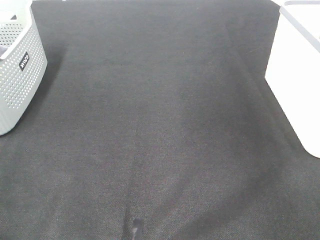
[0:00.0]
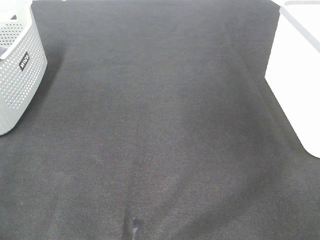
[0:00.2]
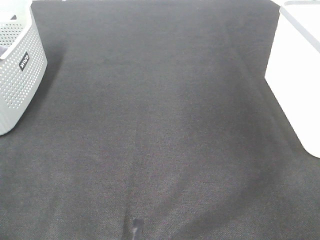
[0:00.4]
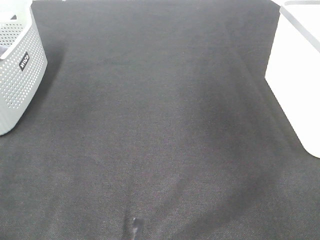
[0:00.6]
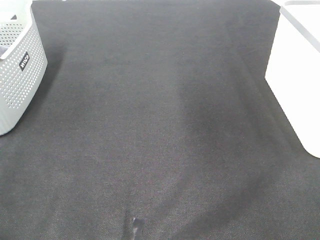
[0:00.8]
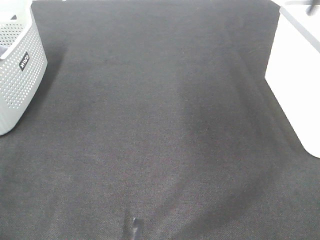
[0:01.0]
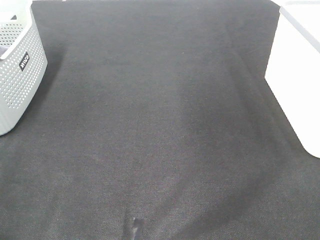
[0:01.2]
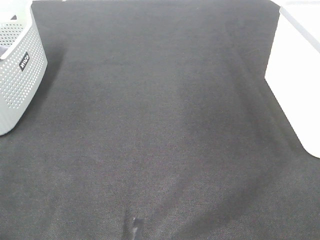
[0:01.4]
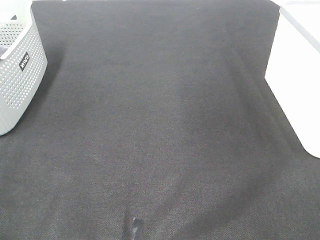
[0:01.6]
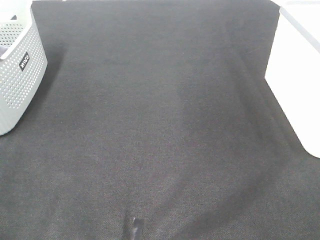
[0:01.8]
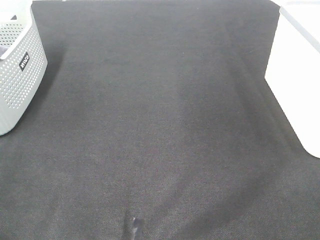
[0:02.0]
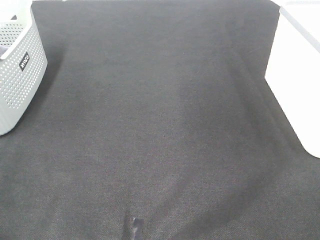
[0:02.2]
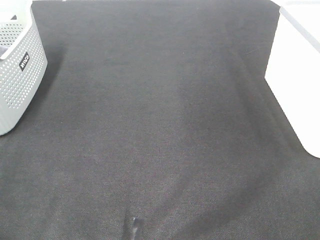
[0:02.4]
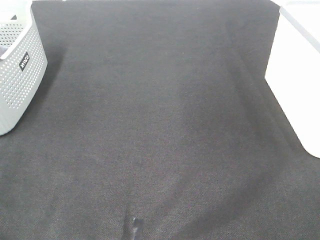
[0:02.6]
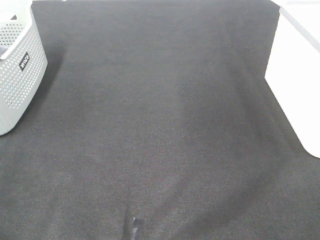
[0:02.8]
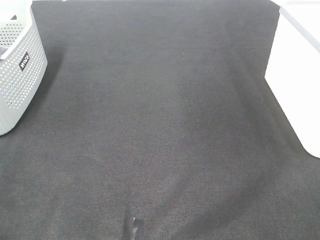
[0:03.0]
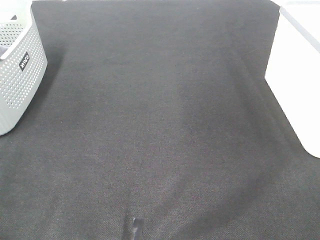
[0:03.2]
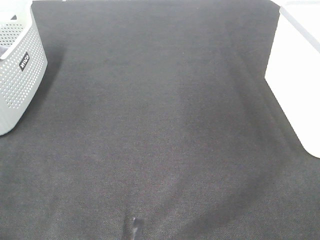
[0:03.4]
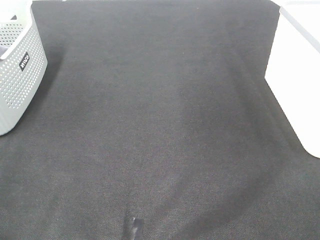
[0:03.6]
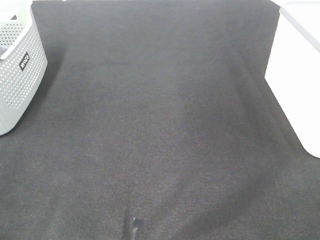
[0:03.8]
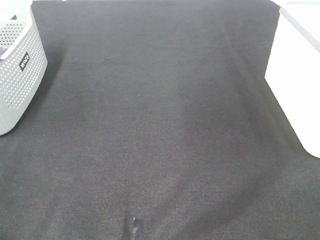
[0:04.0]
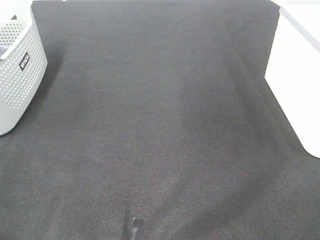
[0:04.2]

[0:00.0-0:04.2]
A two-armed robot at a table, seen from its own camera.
0:02.8 to 0:04.2: The two grippers keep their place.

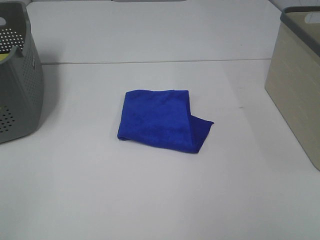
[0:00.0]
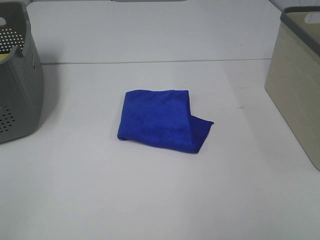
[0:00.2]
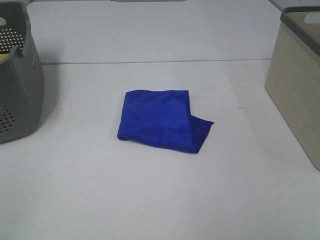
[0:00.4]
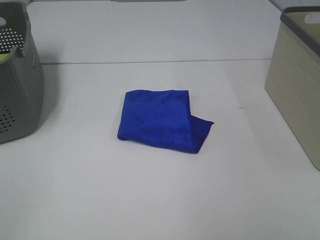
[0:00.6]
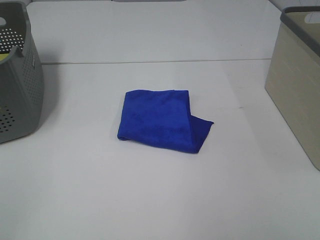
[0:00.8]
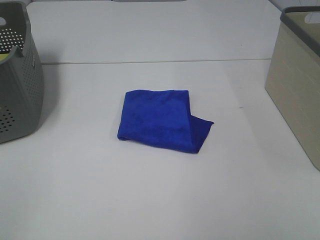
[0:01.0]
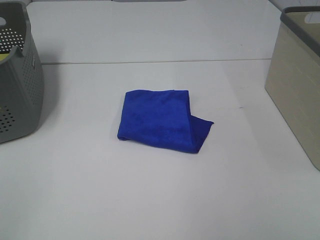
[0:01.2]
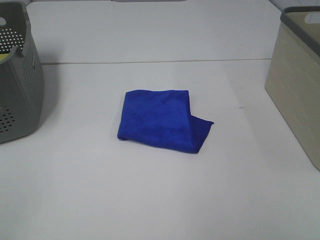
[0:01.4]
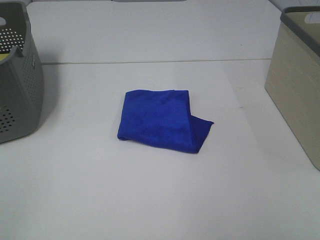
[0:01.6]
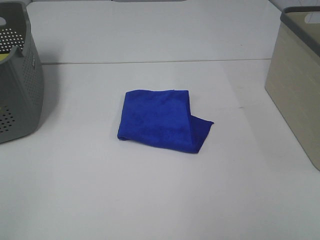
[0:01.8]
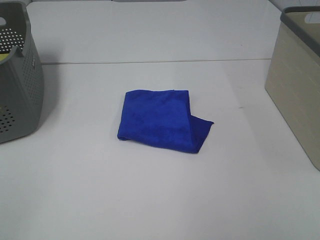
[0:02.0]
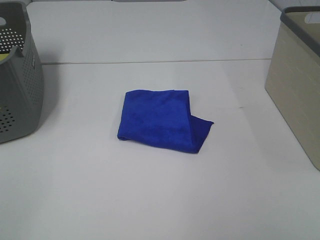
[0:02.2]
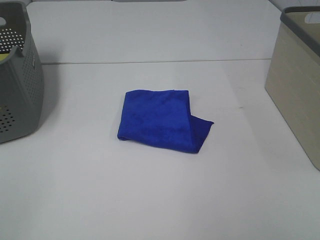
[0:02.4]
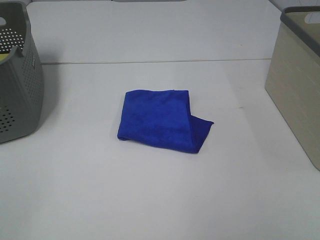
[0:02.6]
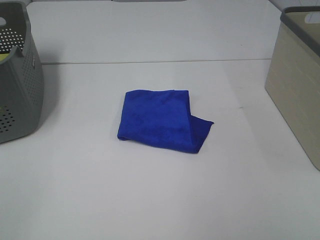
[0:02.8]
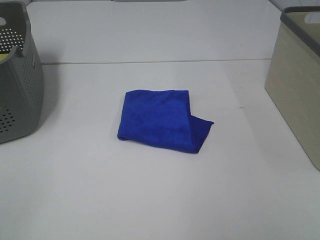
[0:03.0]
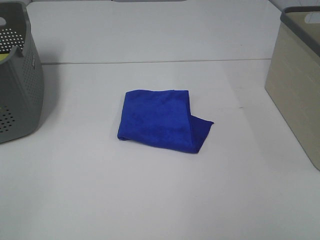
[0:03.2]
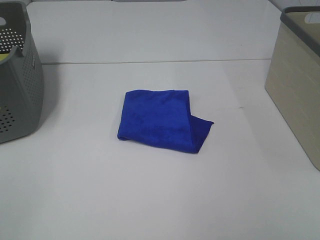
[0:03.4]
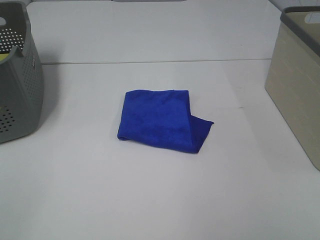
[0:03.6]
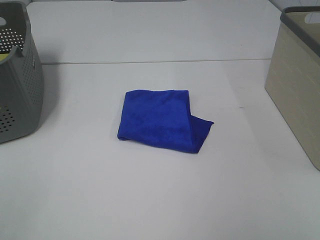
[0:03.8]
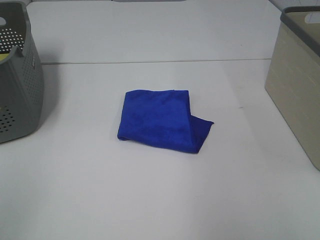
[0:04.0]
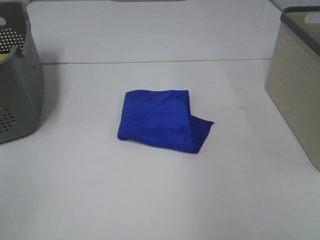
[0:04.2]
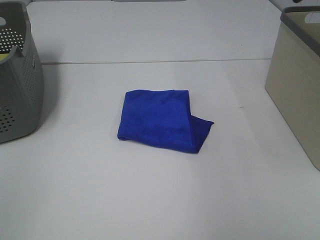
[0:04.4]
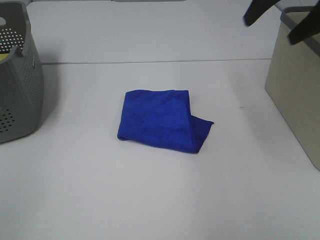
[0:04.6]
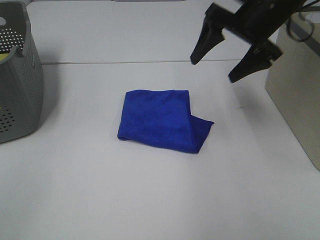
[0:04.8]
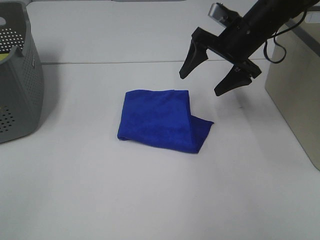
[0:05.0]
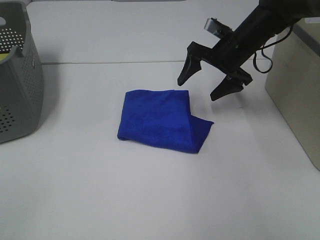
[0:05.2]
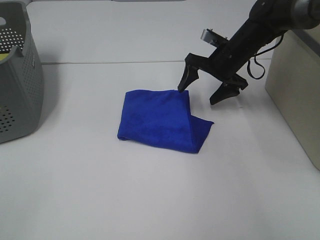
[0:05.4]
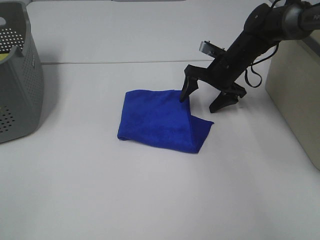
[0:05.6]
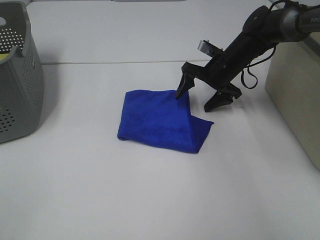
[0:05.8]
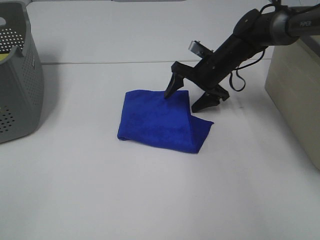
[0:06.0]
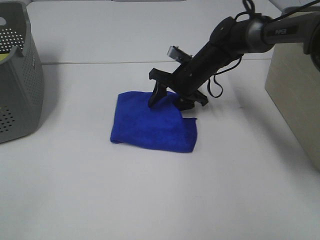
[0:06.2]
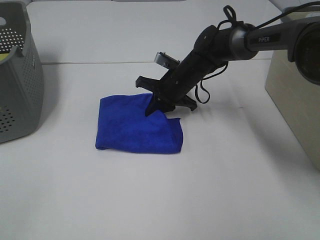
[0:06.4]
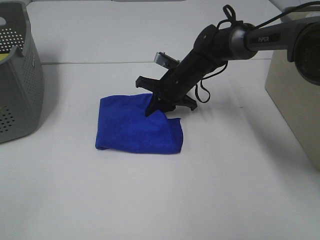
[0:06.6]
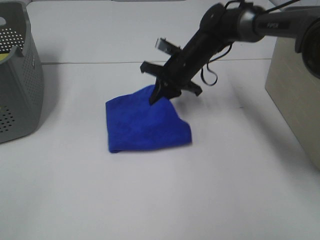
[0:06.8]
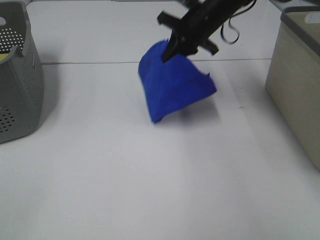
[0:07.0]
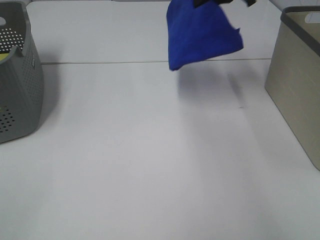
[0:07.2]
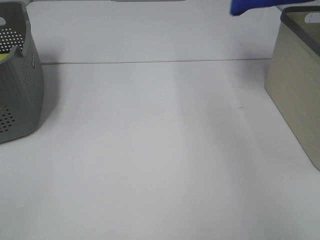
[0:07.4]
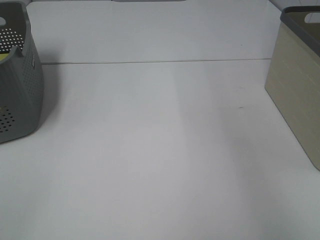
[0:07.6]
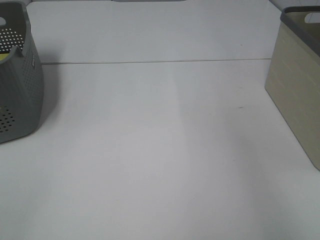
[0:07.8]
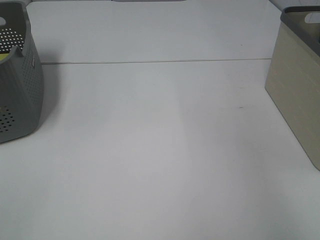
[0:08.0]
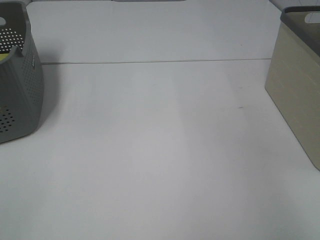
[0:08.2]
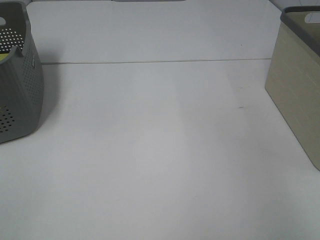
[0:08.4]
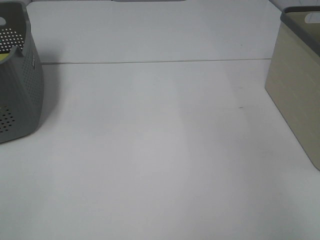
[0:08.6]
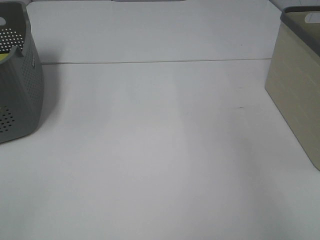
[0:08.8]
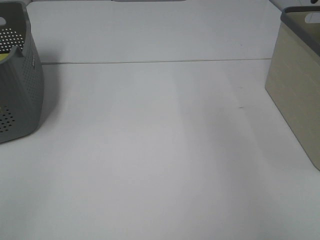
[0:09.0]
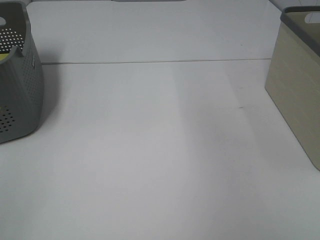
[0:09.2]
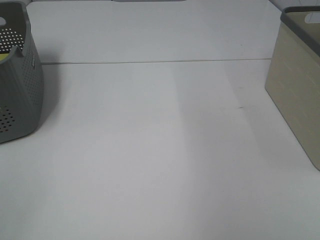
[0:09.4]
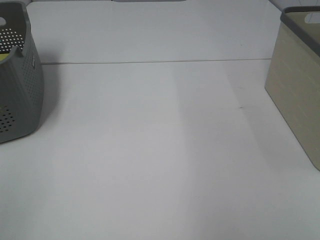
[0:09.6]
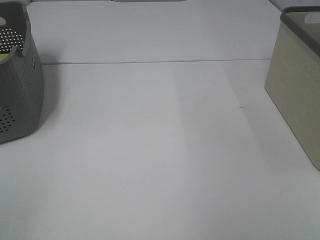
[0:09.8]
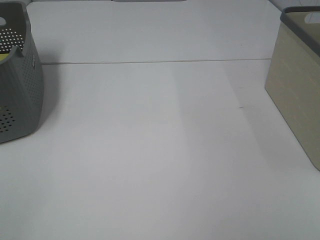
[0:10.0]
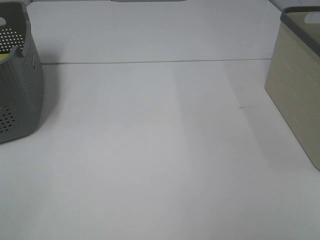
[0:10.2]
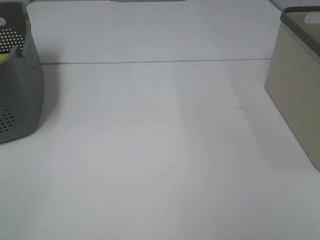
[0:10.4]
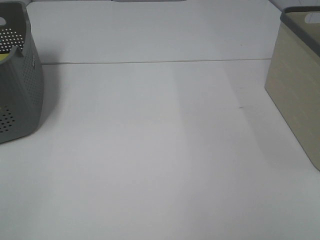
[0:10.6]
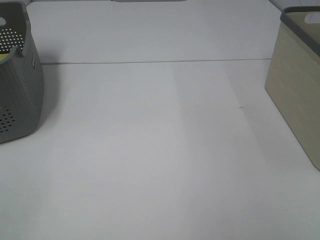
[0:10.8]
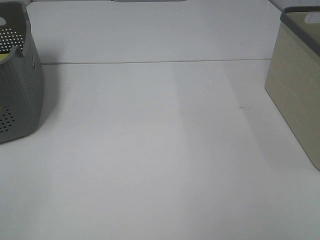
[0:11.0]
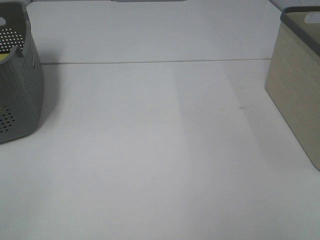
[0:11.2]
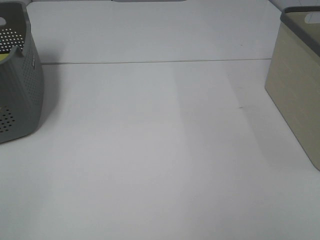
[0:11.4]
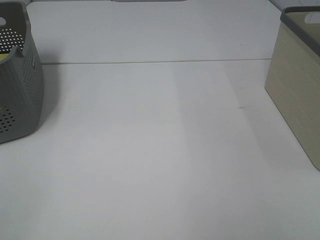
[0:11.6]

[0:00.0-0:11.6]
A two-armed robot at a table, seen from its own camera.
Step, 0:00.0 to 0:06.4: Right hand: grab the folded blue towel.
Step, 0:06.6 to 0:08.4: Right hand: place the blue towel in right basket.
0:00.0 to 0:02.8: The two grippers keep their place.
0:04.4 to 0:05.8: The right gripper is displaced downward, forward and to the left by approximately 35 cm.
0:05.8 to 0:07.2: The right gripper shifts about 20 cm upward, and closes its fingers.
0:07.2 to 0:08.8: The right gripper travels to the right by about 20 cm, and opens its fingers.

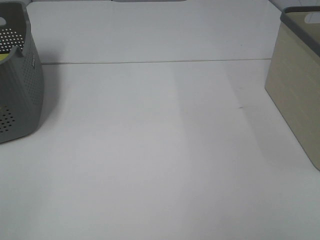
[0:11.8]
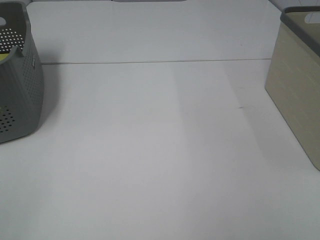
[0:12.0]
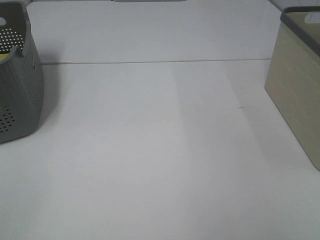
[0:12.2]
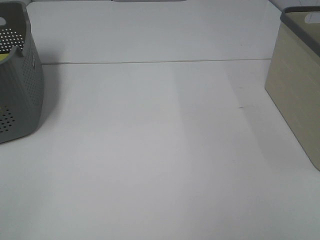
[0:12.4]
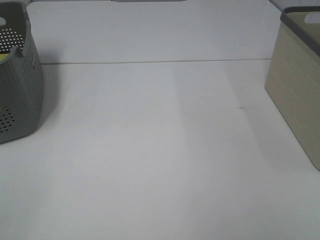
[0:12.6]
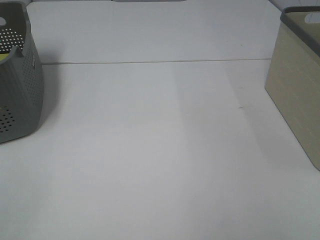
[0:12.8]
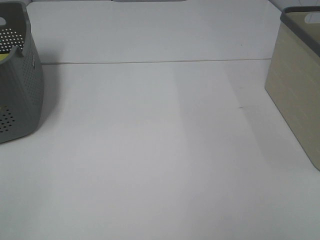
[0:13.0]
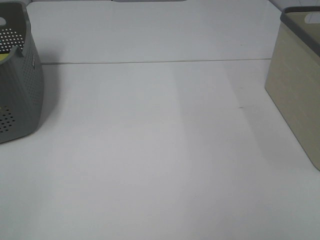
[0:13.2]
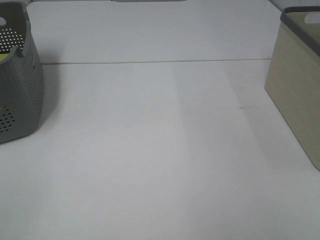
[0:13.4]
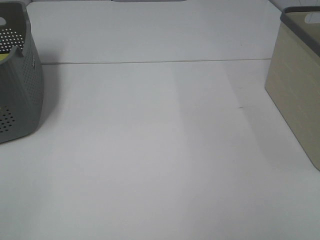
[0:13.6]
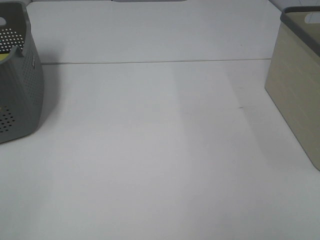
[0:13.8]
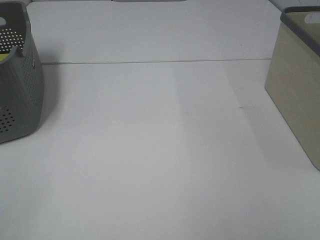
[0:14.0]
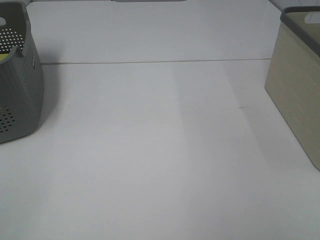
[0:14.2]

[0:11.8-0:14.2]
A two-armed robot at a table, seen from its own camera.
0:11.8 to 0:14.2: Both grippers stay about where they are.

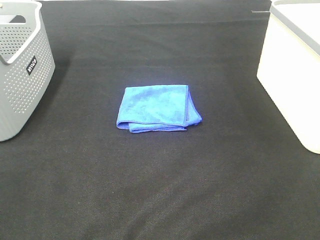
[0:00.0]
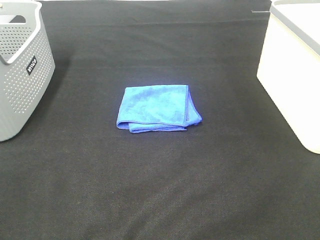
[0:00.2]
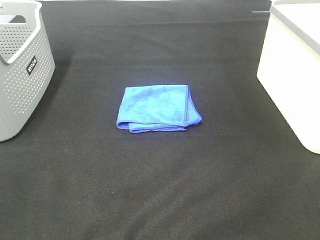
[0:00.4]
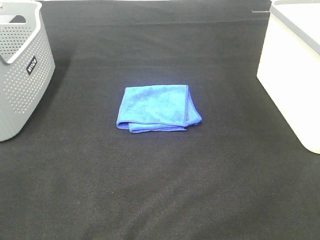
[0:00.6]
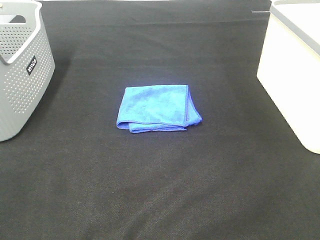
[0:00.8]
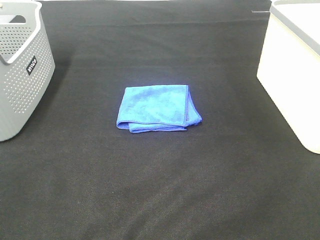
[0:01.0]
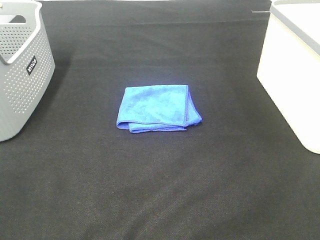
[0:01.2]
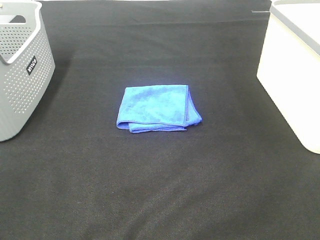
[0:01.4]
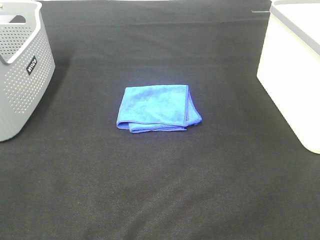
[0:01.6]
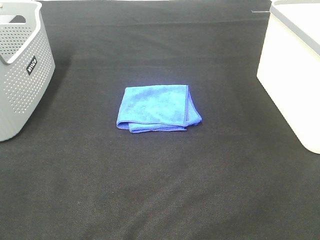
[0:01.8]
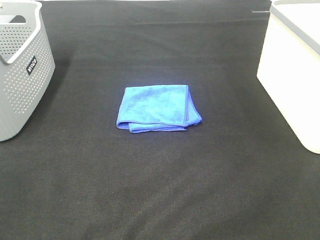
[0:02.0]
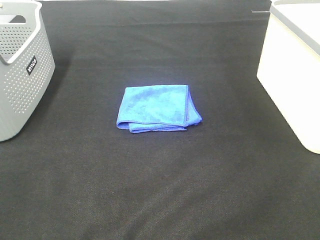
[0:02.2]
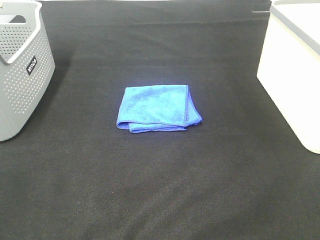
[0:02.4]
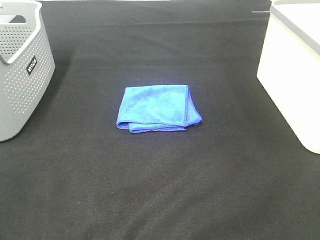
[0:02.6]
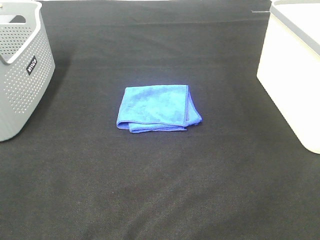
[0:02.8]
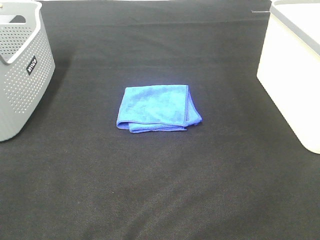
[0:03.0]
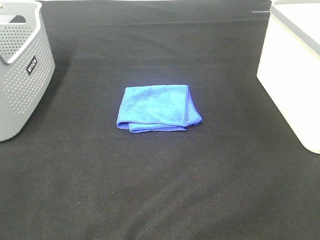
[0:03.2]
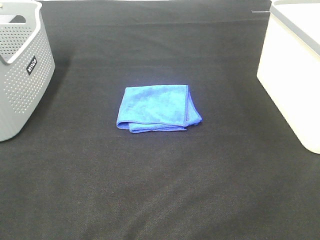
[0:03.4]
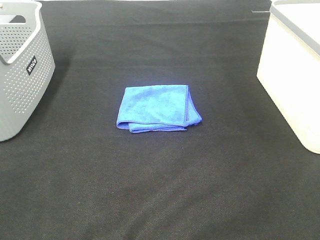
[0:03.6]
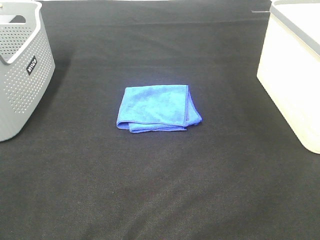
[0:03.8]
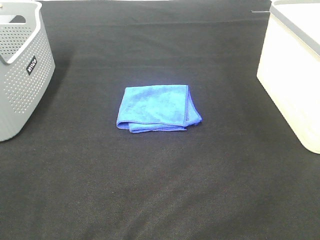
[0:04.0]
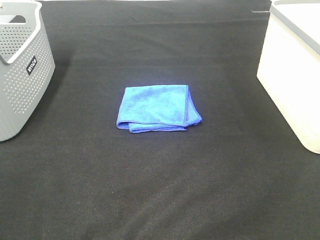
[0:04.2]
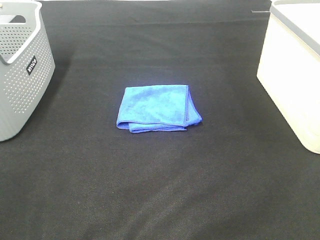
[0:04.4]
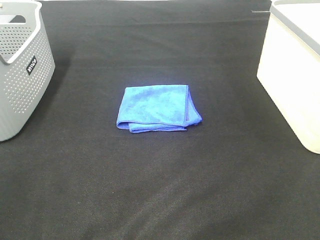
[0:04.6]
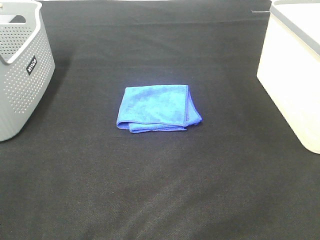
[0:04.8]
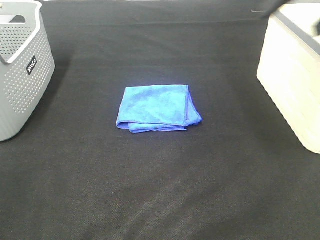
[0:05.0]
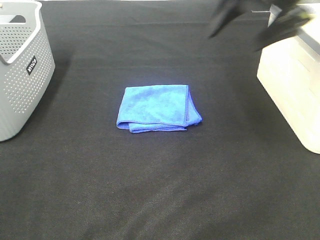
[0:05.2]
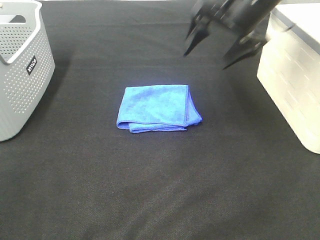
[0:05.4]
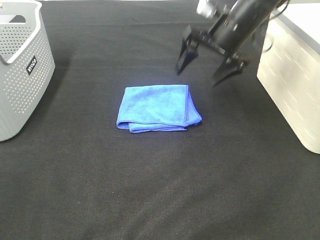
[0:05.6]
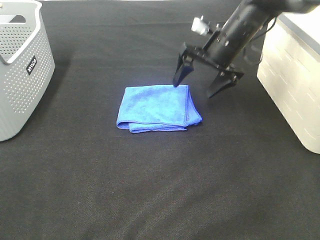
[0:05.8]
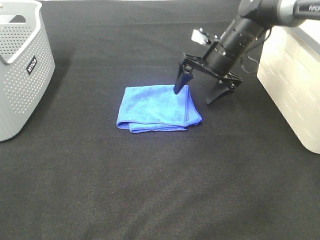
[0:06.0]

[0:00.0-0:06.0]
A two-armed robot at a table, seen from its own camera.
0:00.0 to 0:03.0: The two grippers keep their place.
0:04.4 to 0:06.0: The right gripper goes roughly 40 cm forward, downward and to the left.
